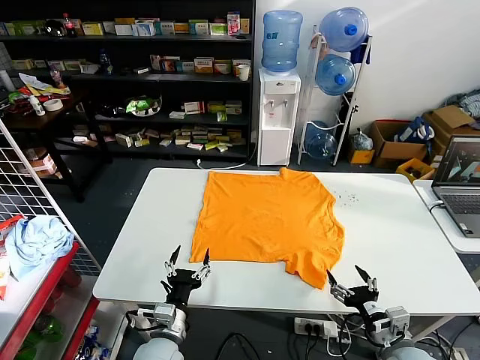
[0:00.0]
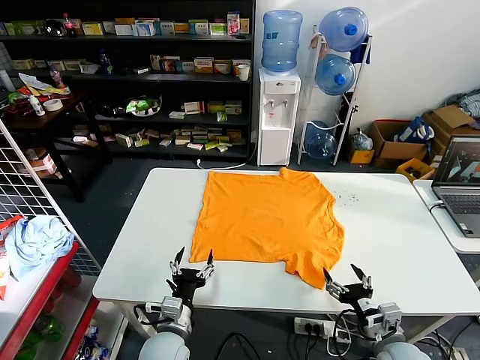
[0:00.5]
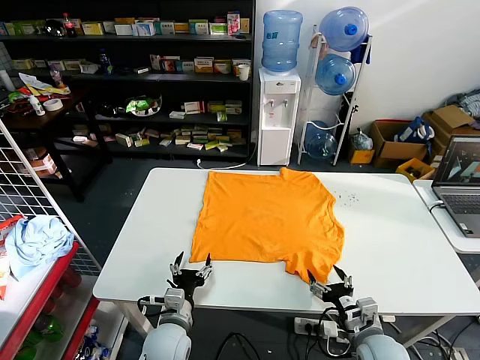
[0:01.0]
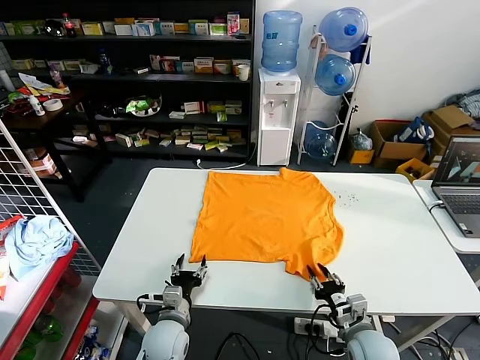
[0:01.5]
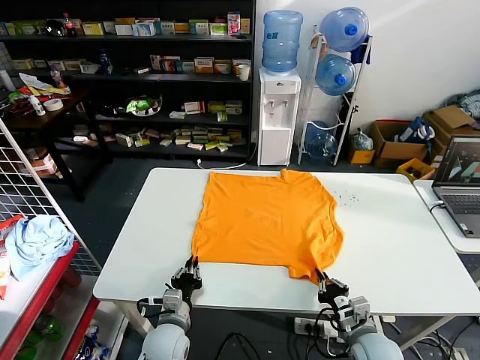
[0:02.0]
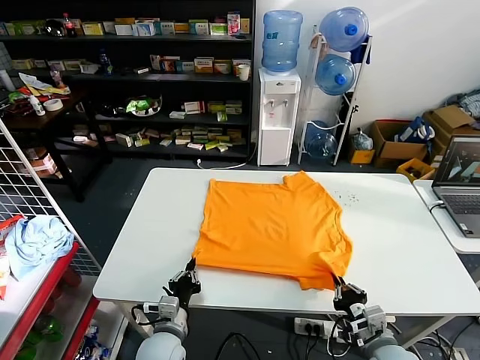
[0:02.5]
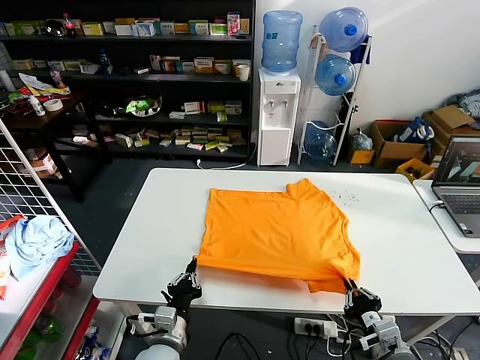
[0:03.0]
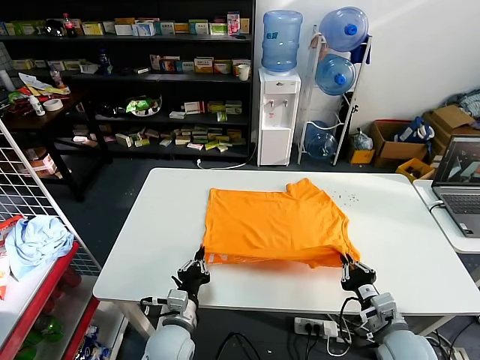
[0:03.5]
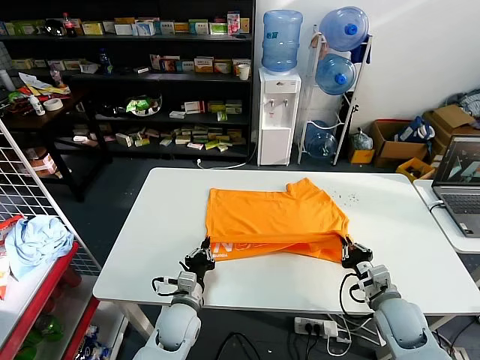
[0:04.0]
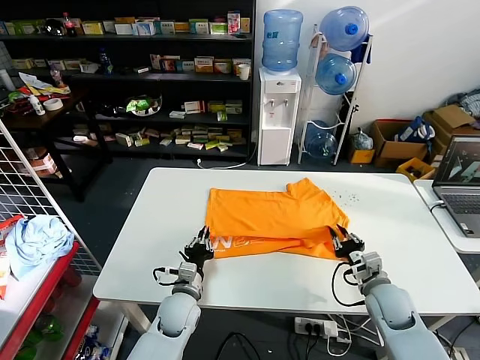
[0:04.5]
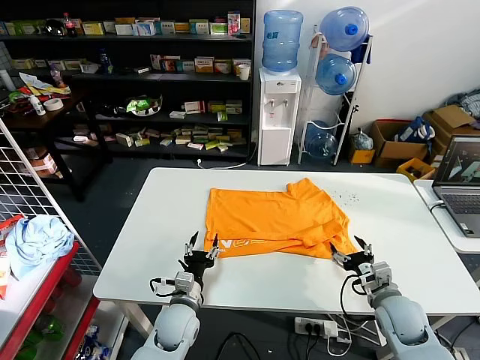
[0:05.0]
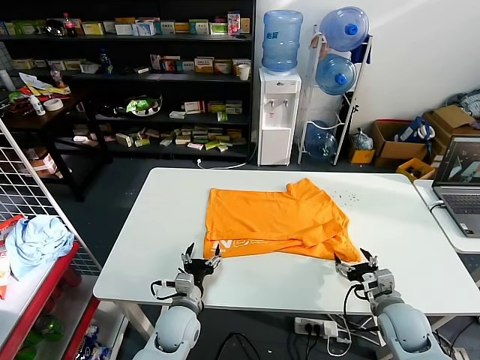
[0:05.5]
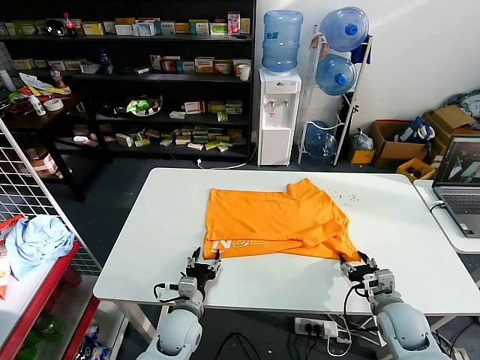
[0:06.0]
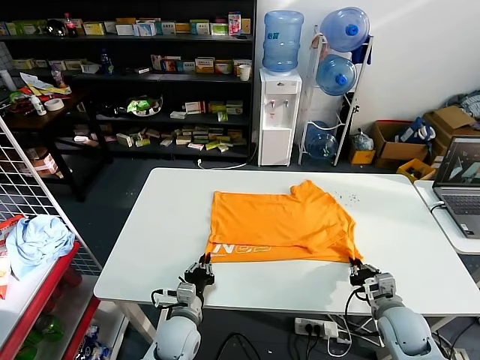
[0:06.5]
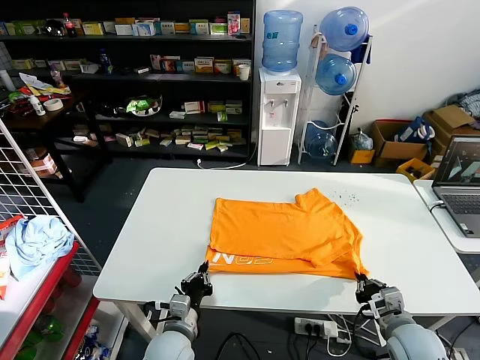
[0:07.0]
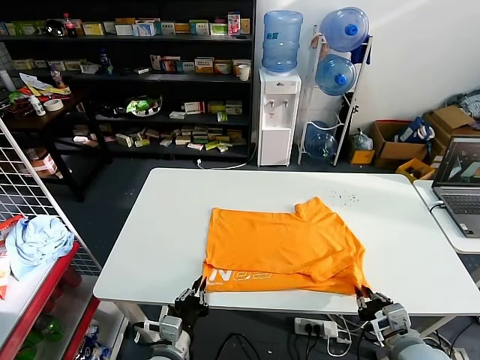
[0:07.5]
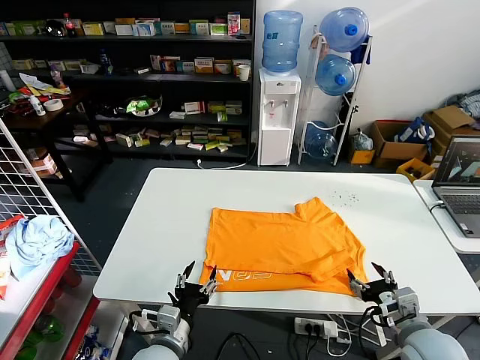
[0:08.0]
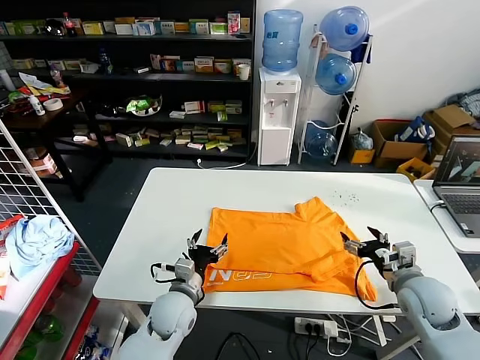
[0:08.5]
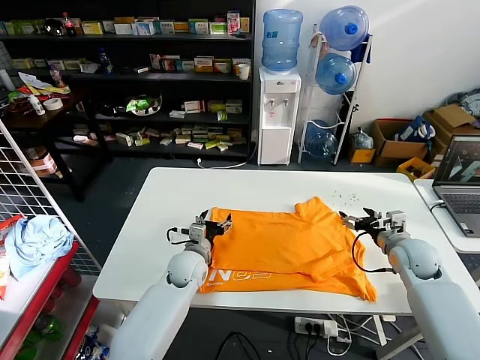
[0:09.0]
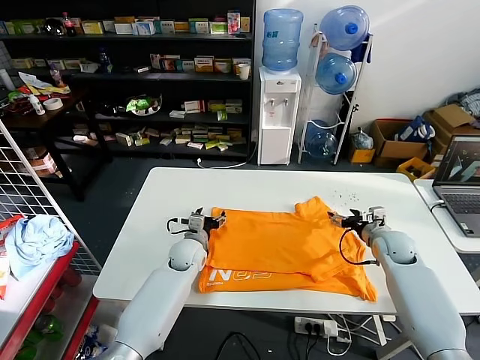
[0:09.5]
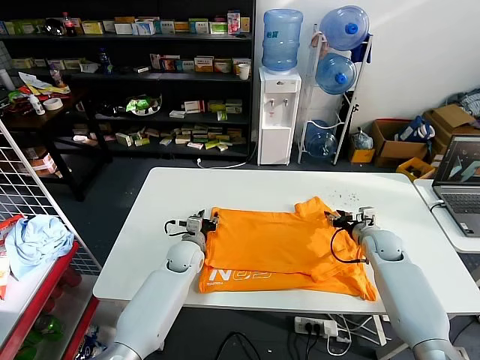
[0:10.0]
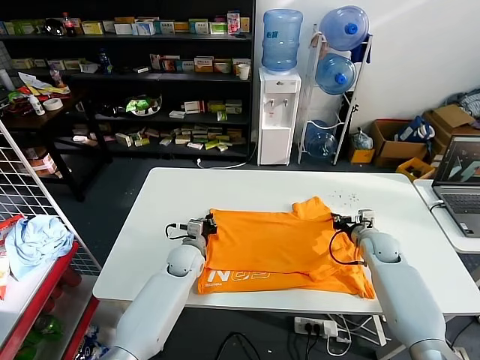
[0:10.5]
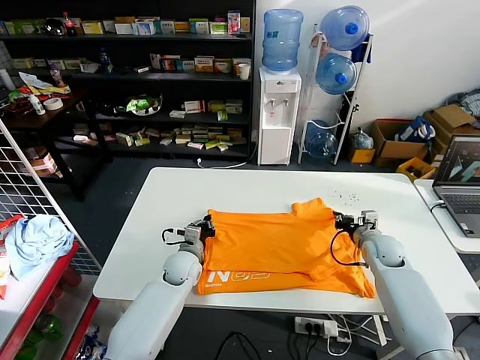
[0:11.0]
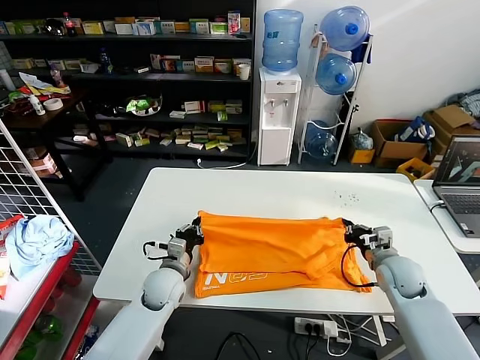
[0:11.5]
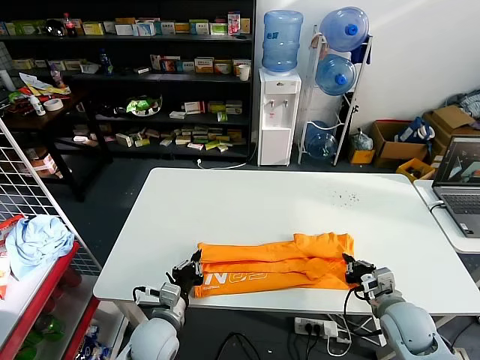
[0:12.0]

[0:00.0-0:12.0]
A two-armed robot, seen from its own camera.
Task of the whole recording: fold and organize the clothes.
Step, 0:00.0 to 0:02.0: use both grippers simultaneously to clamp the lower edge of the clothing fabric.
Step, 0:02.5 to 0:05.0: use both grippers to drag the lower edge of the fabric forward and fold it over the upper edge.
Step, 0:05.5 to 0:07.5: Drag the clothes downward with both gripper.
Step, 0:08.0 to 0:10.5: use both grippers simultaneously to clamp the upper edge of the clothing fabric.
0:02.0 to 0:04.0: The right gripper is displaced forward and to the right by roughly 10 cm.
0:04.0 to 0:06.0: The right gripper opens up. The left gripper opens its fingers.
0:06.0 to 0:08.0: The left gripper shifts about 10 cm backward and upward, and closes, then opens again. The right gripper is displaced upward and backward by roughly 10 cm, and closes, then reopens.
0:08.0 to 0:10.0: The two grippers go about 25 cm forward.
0:10.0 to 0:12.0: The grippers both shift backward by roughly 20 cm. The left gripper closes. The right gripper closes its fingers.

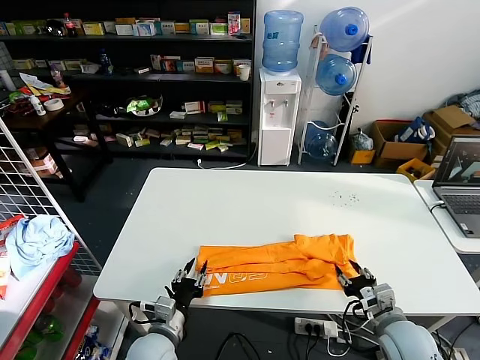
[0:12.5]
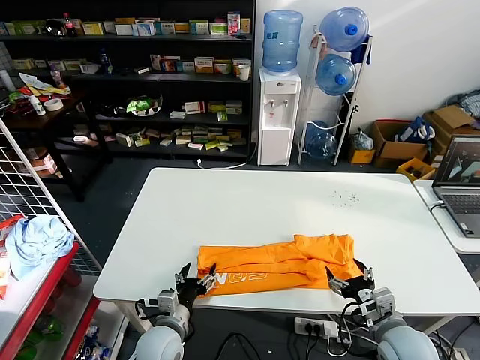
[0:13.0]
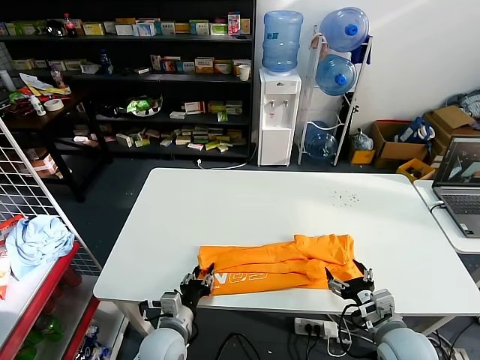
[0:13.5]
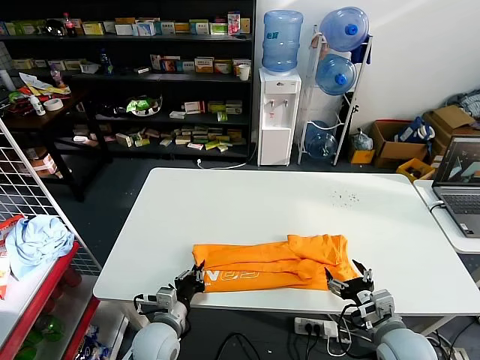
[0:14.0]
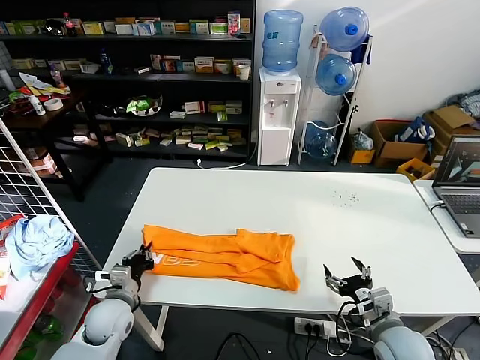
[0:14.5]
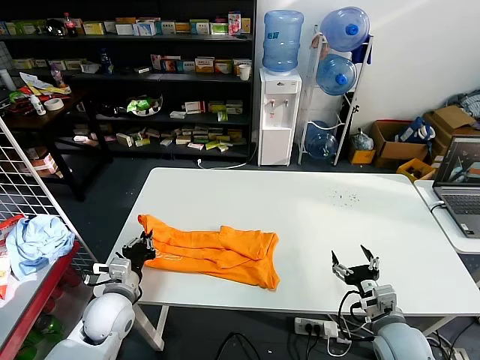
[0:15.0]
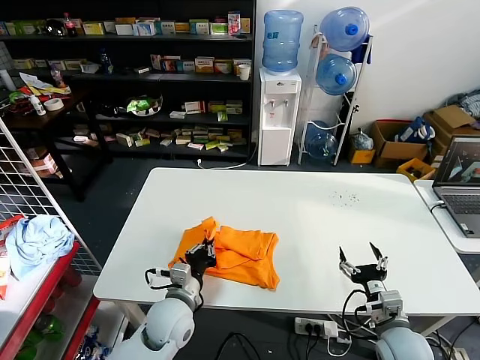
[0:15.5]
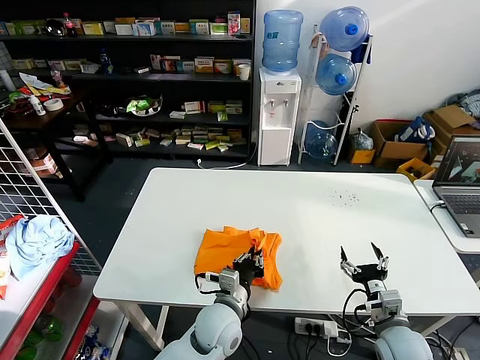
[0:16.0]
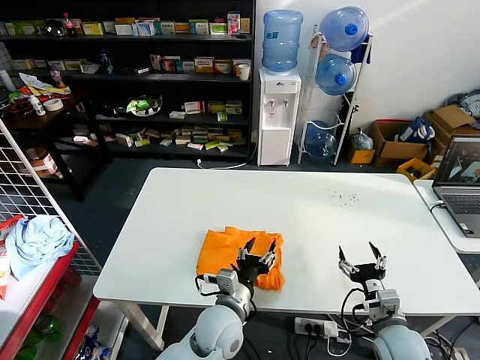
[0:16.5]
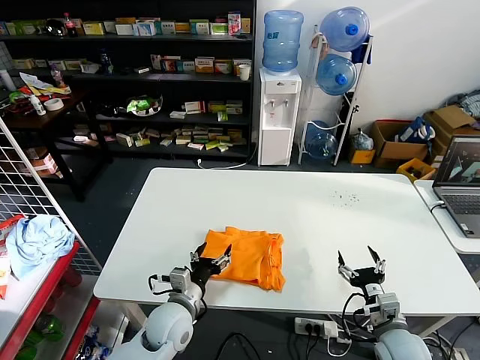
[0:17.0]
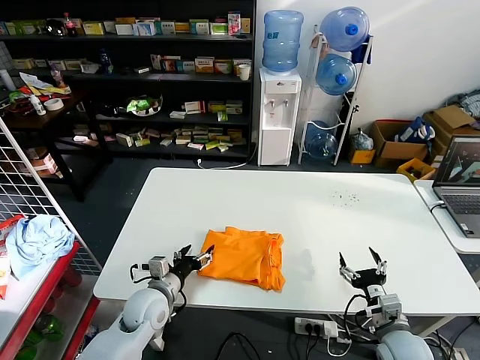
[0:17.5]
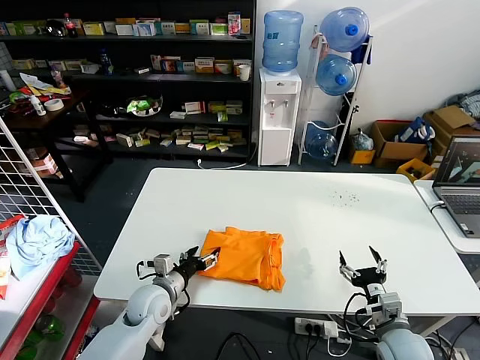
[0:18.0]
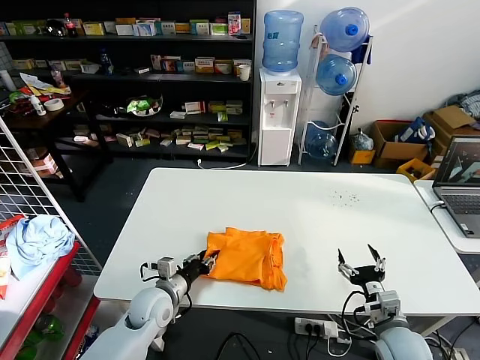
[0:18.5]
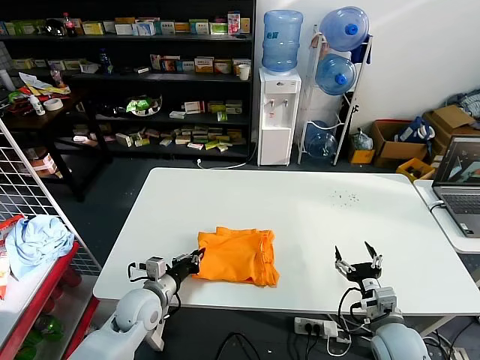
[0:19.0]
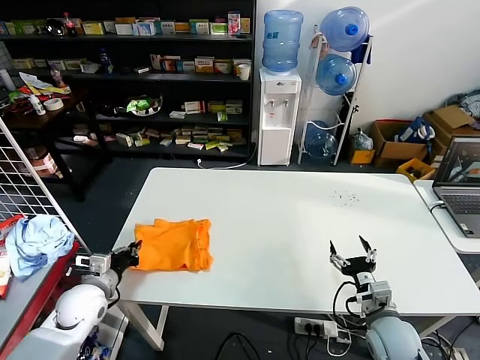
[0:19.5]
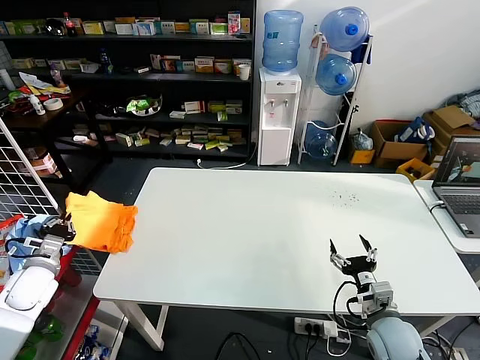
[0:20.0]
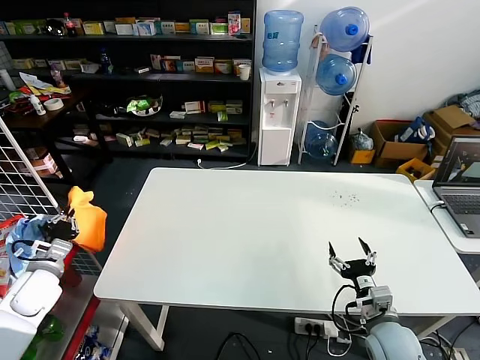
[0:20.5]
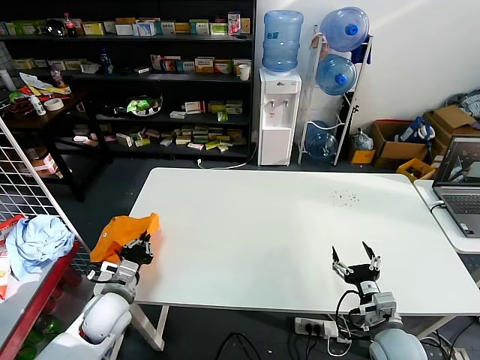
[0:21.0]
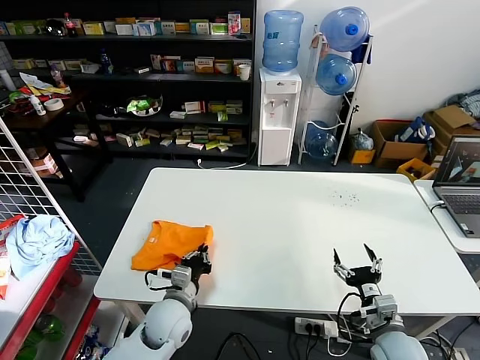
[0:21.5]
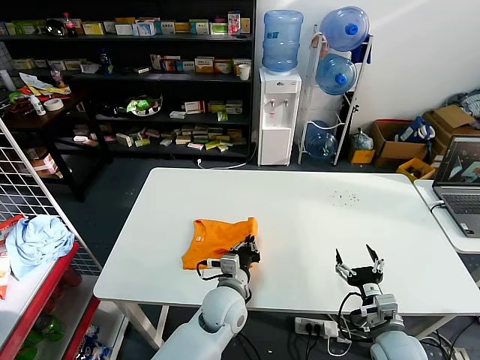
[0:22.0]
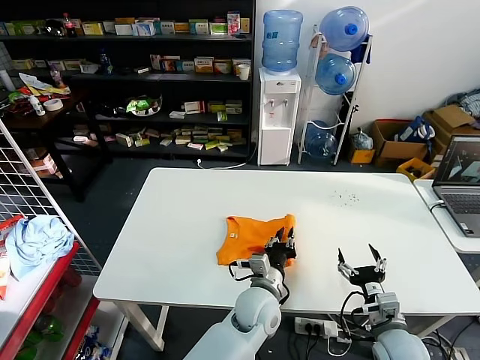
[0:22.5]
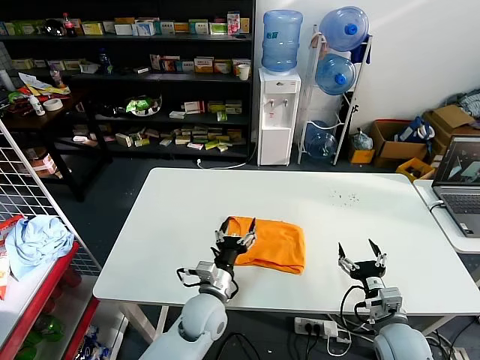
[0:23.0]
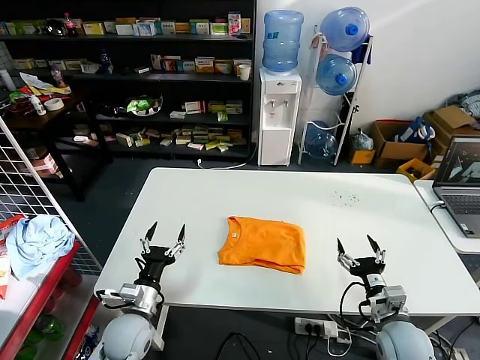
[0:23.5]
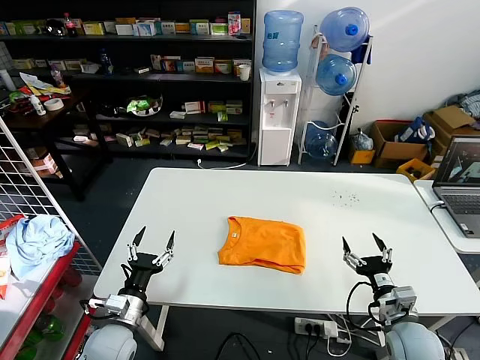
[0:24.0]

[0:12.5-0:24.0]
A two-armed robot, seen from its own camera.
Task of the whole recording: fold and organize the clothes.
Step, 0:13.0 to 0:14.0: use the left gripper to clamp the left edge of the fabric.
Step, 0:14.5 to 0:16.5: use the left gripper to drag the left edge of the fabric to the left and folds it over the right edge.
Step, 0:17.0 to 0:22.5: Flip the folded clothes over with left gripper.
0:12.5 to 0:14.5: The left gripper travels to the left and forward by about 10 cm, and closes up. Meanwhile the right gripper opens up.
0:14.5 to 0:16.5: The left gripper moves to the right, approximately 25 cm, and opens its fingers.
0:16.5 to 0:18.5: The left gripper is displaced to the left by approximately 20 cm.
0:18.5 to 0:20.0: The left gripper heads to the left, covering about 25 cm, and closes its fingers.
0:20.0 to 0:22.0: The left gripper goes approximately 40 cm to the right.
0:22.0 to 0:24.0: The left gripper travels to the left by about 25 cm, and opens its fingers.

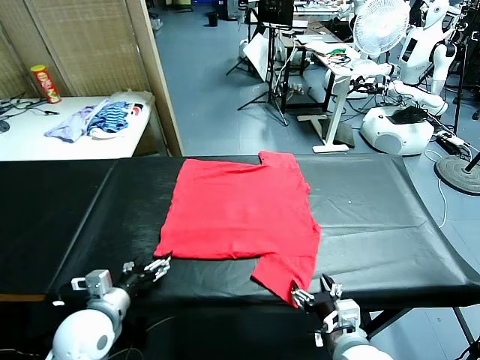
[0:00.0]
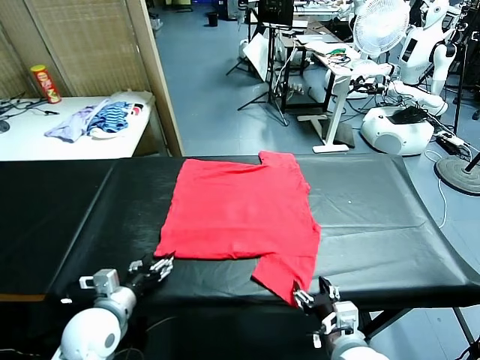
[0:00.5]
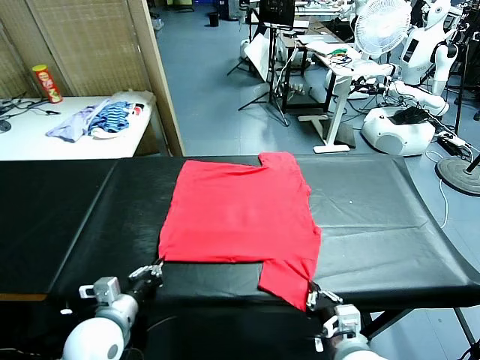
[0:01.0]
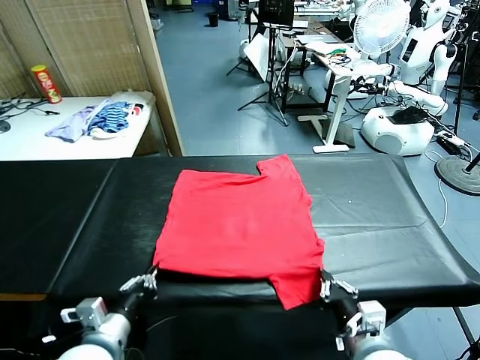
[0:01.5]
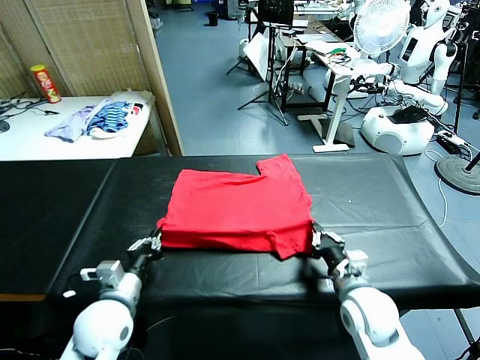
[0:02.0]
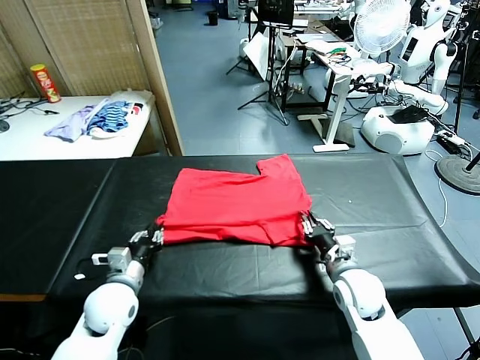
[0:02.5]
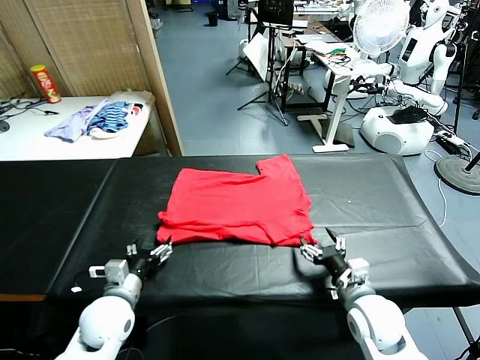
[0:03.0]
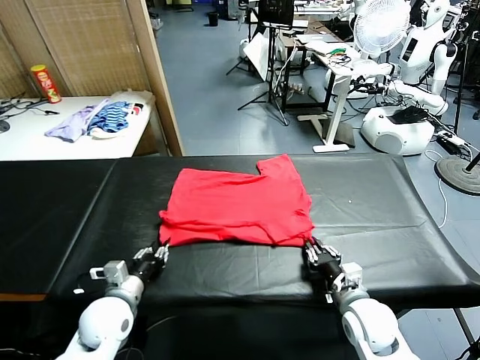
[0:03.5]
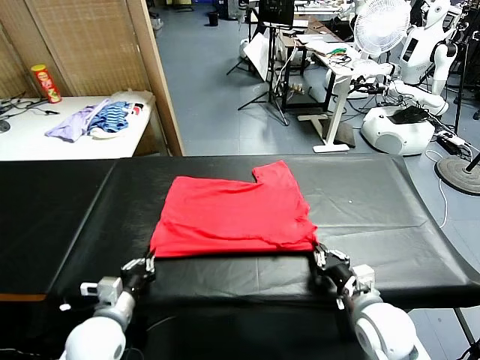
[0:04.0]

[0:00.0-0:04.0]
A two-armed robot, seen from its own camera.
Task of the whole recording: fold and organize the clothes.
Step, 0:00.0 to 0:01.0: use both grippers simultaneously to clamp the lower edge of the clothing fabric.
Step, 0:01.5 to 0:02.5: use both grippers to drag the lower edge of the fabric forward and fold it over the upper edge.
0:02.0 to 0:04.0: The right gripper moves backward, roughly 10 cm, and opens and closes again; the left gripper goes approximately 5 cm backward, and opens, then closes again.
